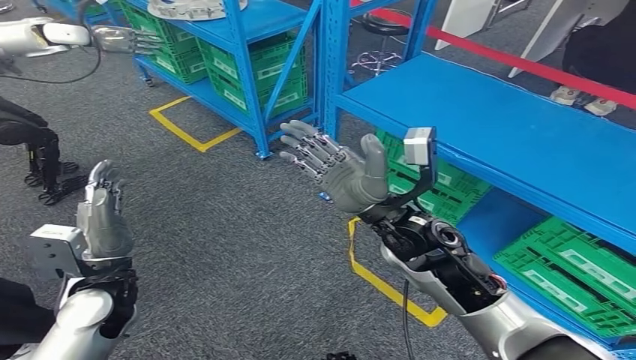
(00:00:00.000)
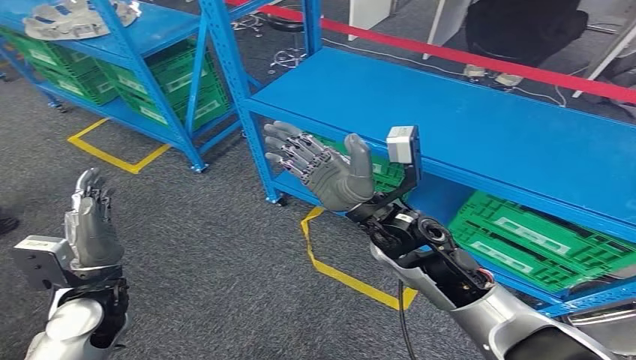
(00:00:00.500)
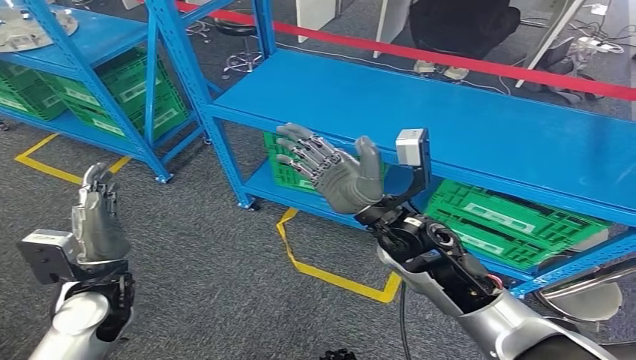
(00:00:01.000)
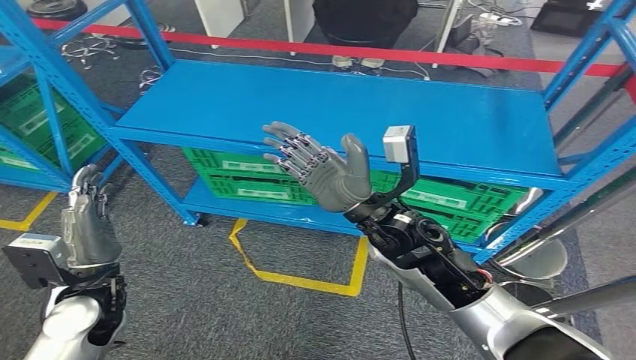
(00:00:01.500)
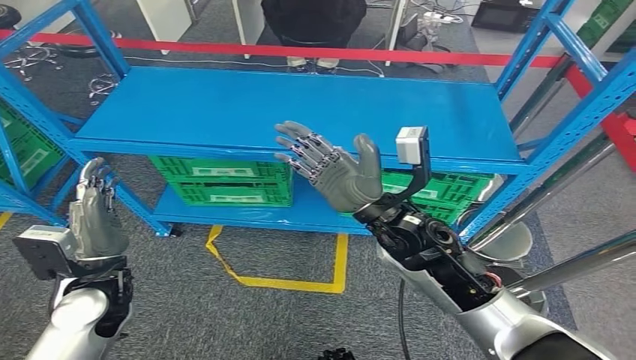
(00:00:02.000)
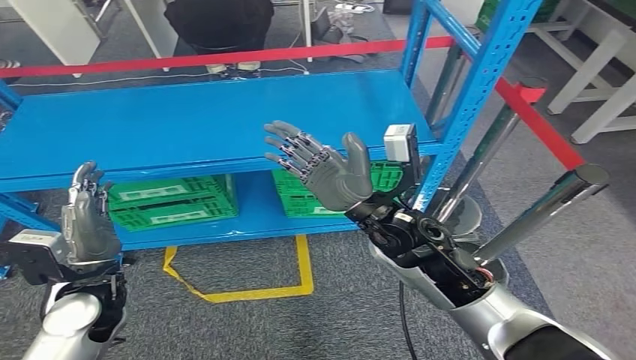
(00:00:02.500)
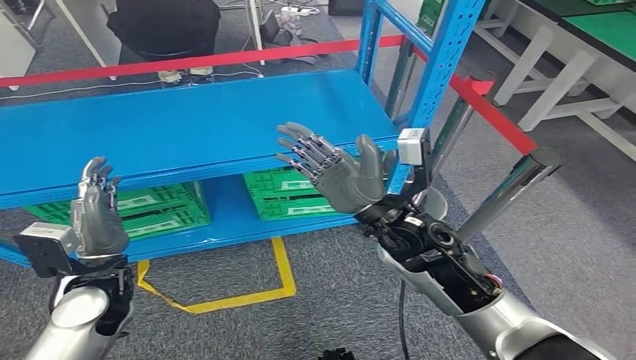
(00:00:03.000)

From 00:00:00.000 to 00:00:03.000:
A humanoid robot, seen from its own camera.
Step, from 00:00:00.000 to 00:00:03.000: Return to the initial position at the workbench.
